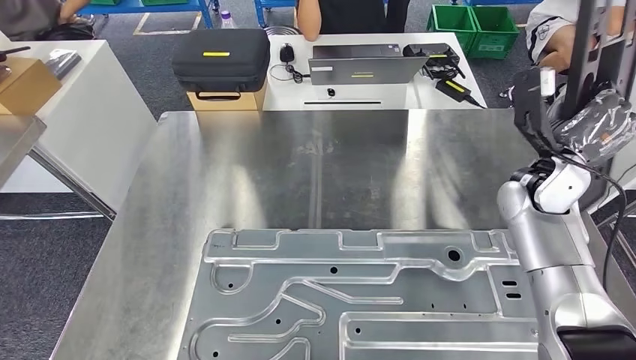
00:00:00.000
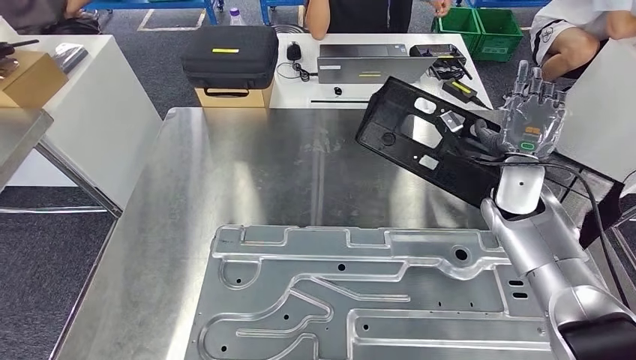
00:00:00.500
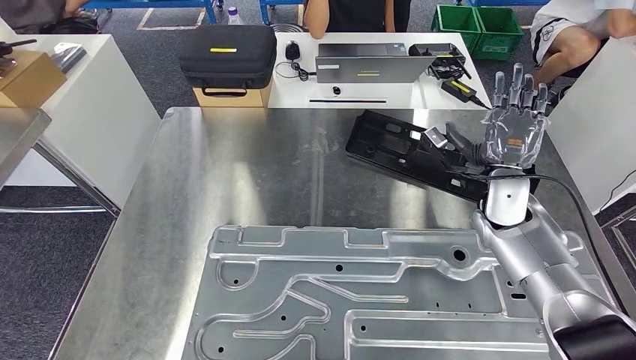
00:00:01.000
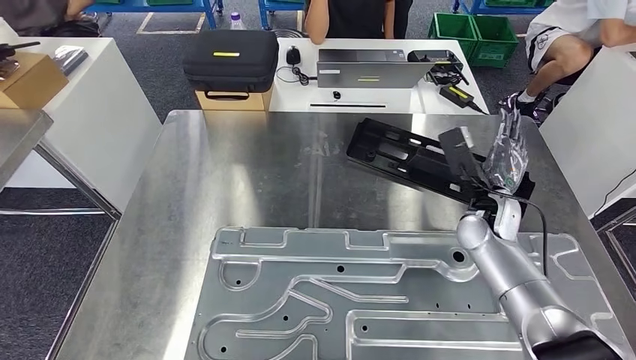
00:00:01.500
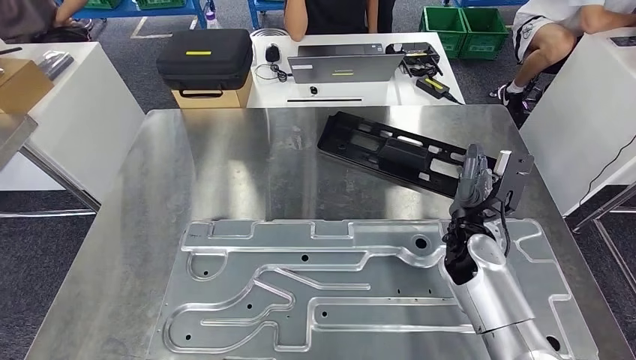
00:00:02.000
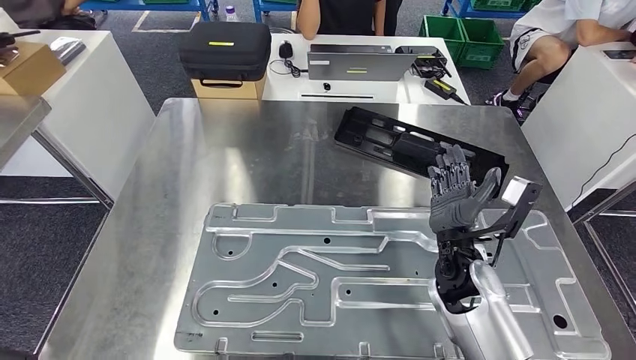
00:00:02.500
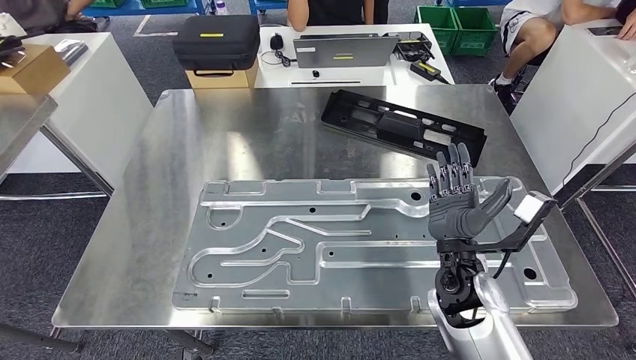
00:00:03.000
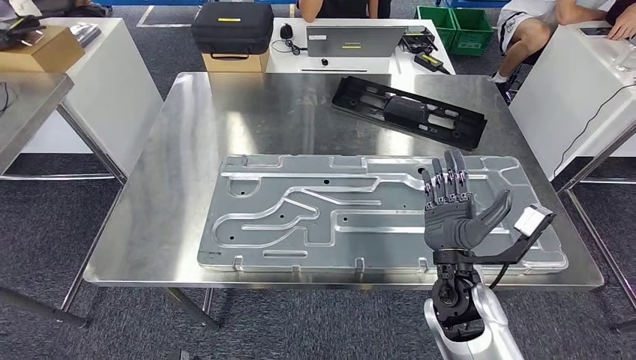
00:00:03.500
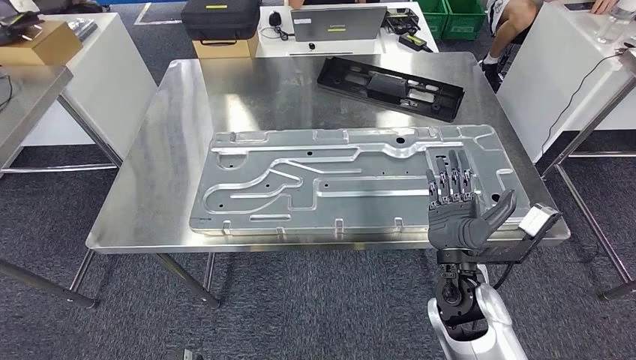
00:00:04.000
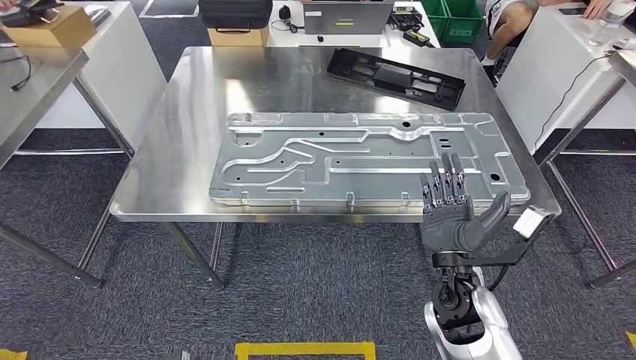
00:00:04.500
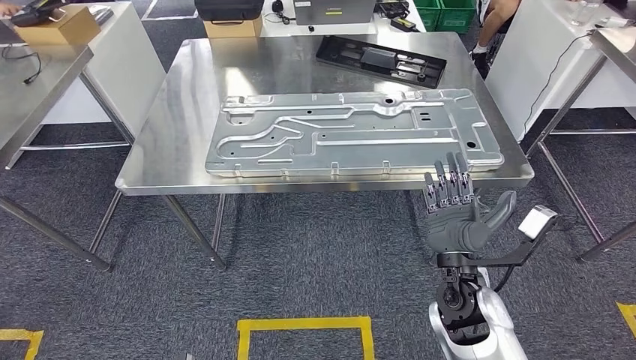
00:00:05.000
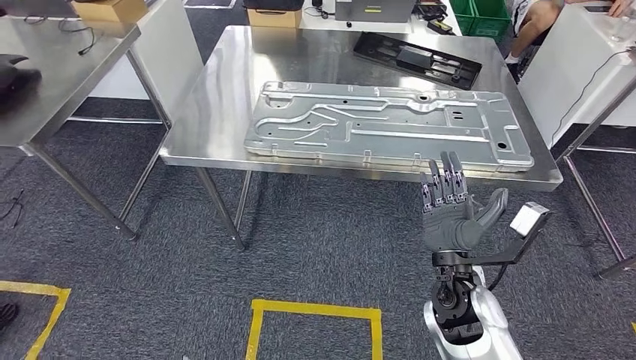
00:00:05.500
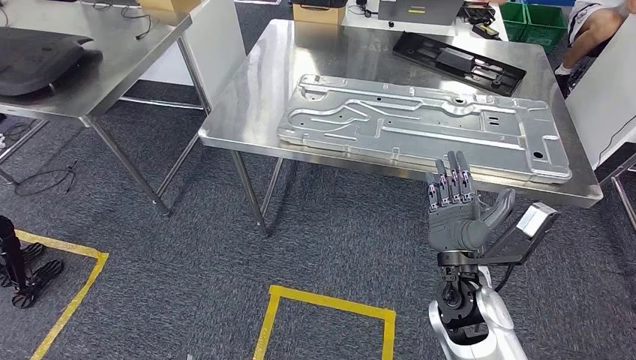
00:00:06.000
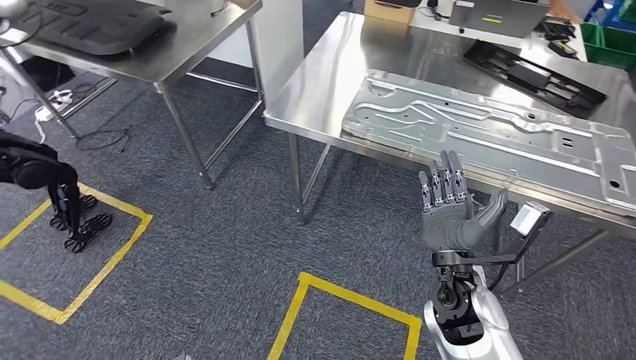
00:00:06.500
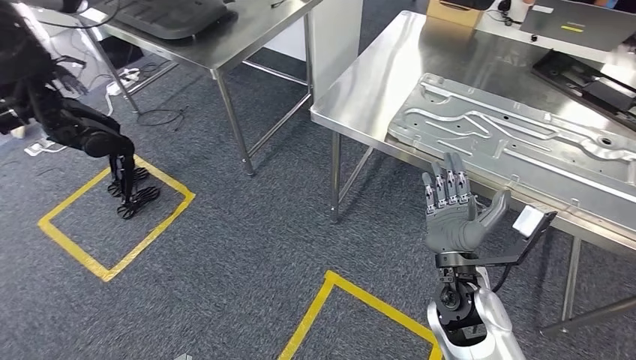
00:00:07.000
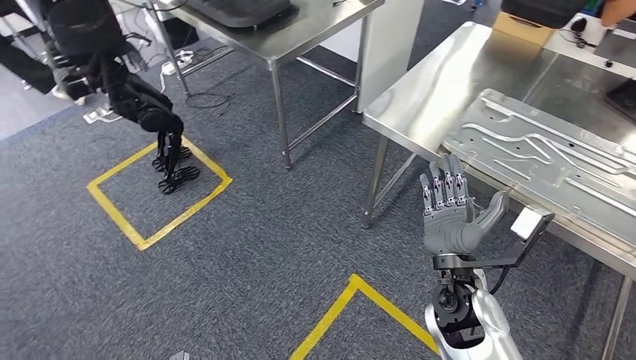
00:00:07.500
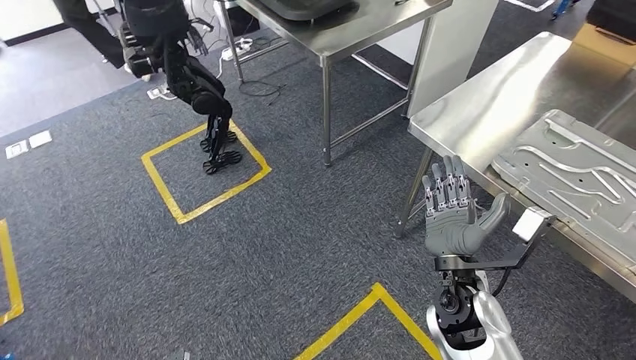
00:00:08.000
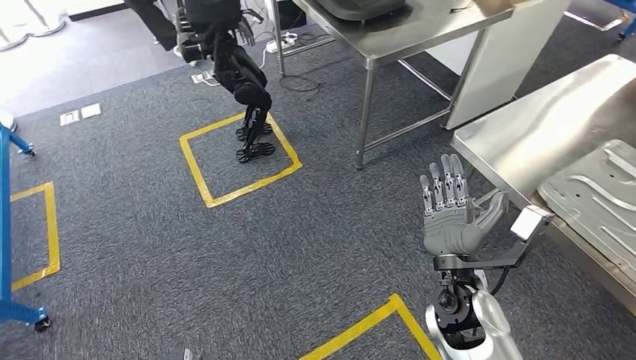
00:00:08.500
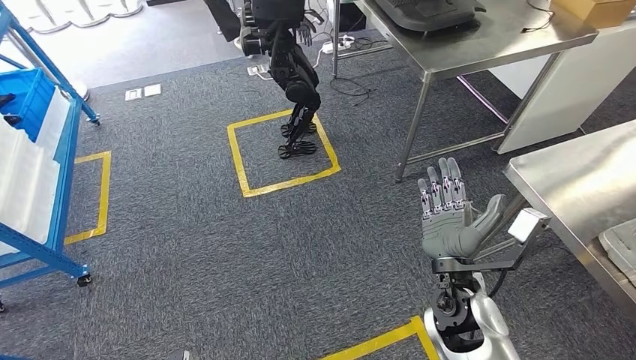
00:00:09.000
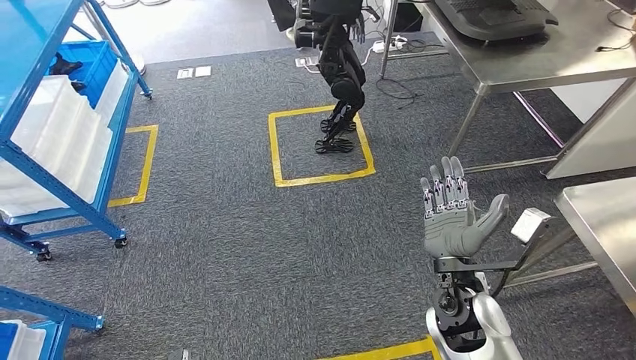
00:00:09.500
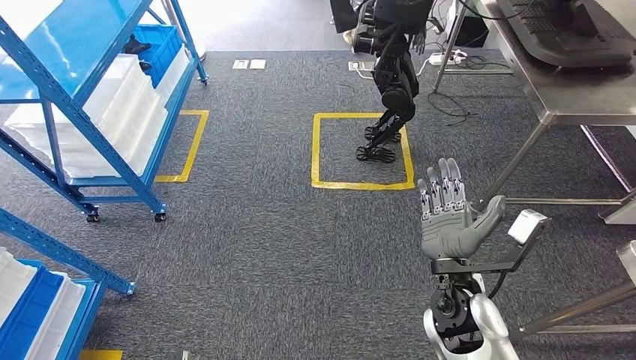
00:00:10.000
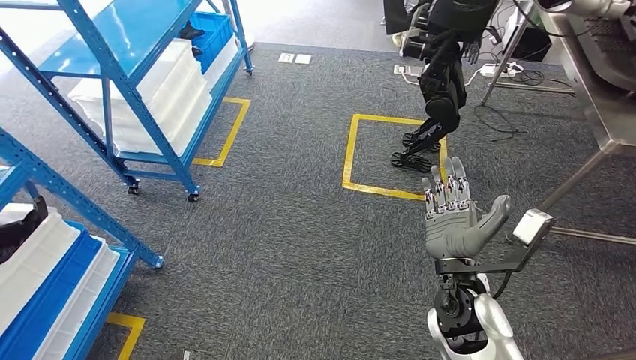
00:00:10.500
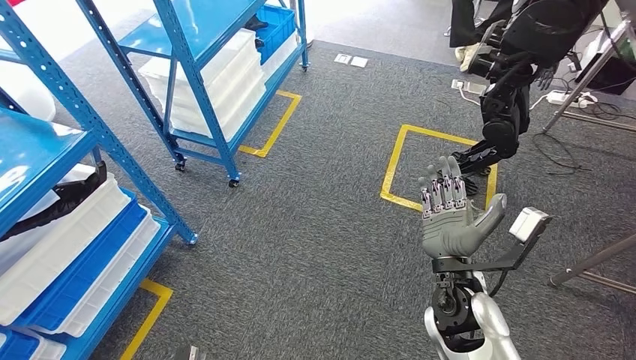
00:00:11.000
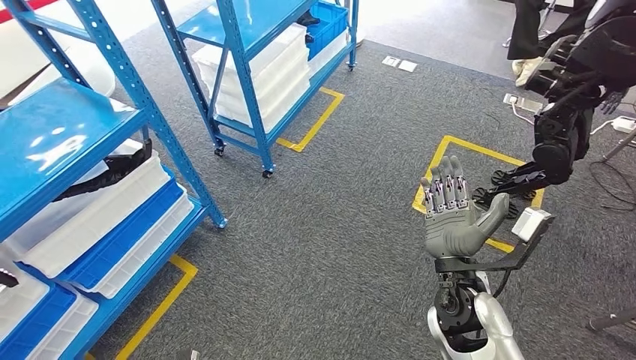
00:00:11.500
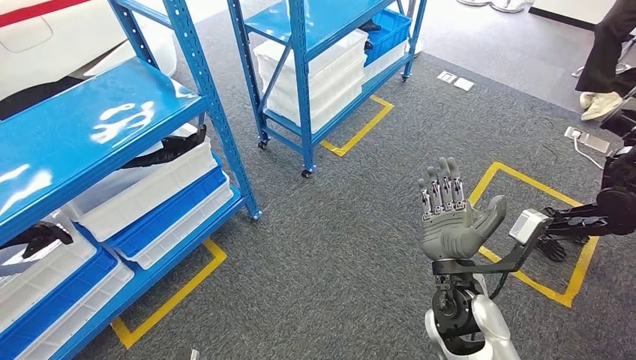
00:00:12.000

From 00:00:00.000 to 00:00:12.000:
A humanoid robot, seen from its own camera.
Step, from 00:00:00.000 to 00:00:06.000: Insert the large material into the corresponding hole on the workbench.

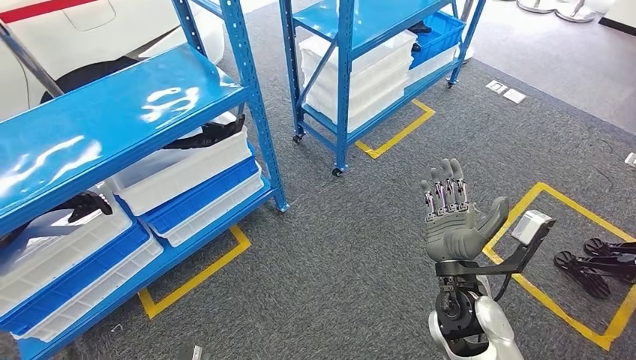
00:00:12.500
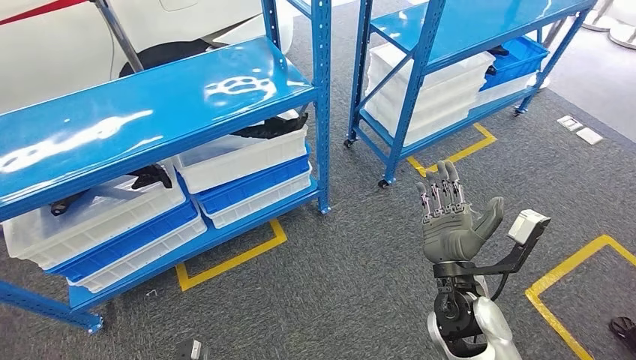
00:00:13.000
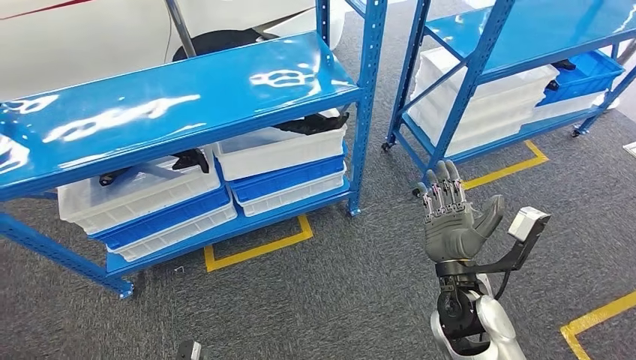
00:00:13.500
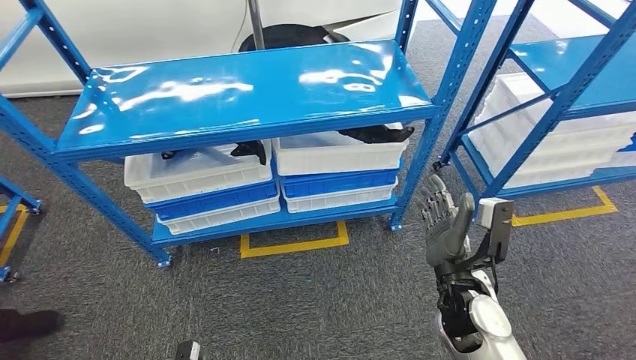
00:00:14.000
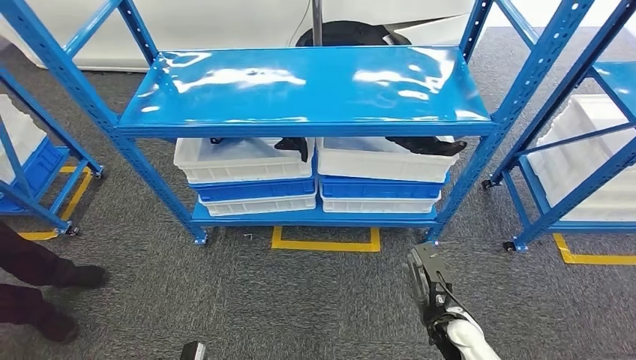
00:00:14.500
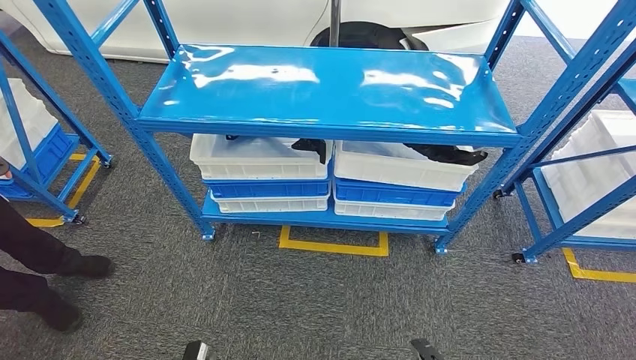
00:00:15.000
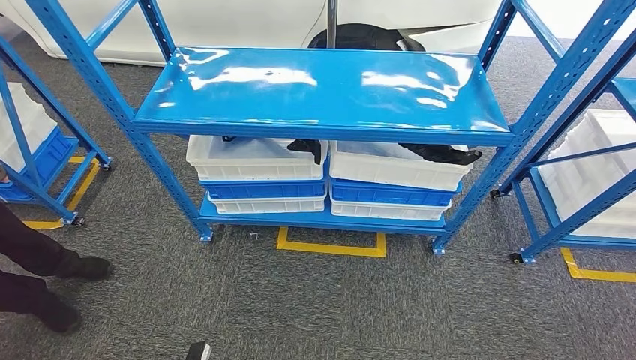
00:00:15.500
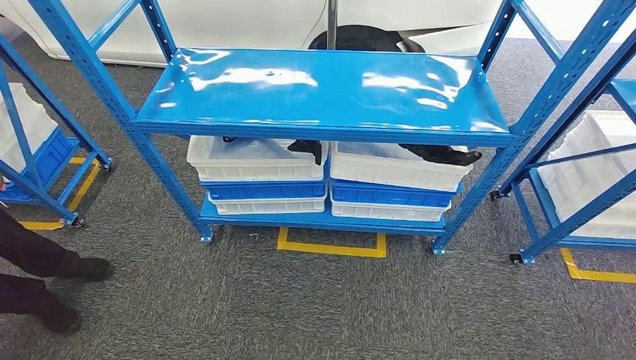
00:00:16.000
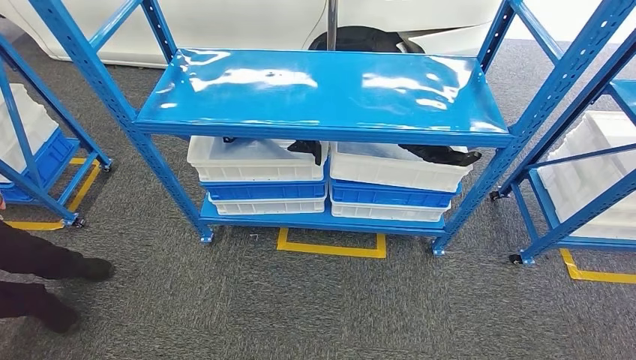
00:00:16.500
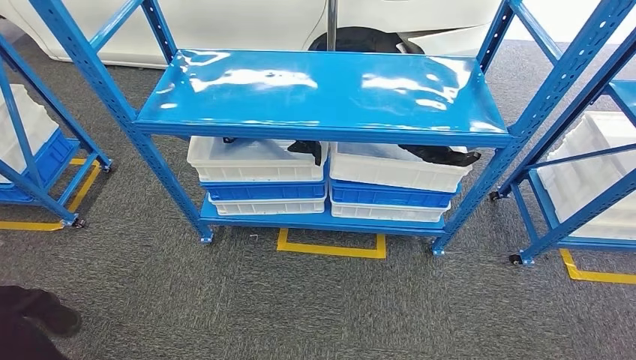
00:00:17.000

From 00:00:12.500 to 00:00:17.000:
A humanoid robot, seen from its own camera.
Step, from 00:00:12.500 to 00:00:17.000: Move to the initial position of the shelf.
